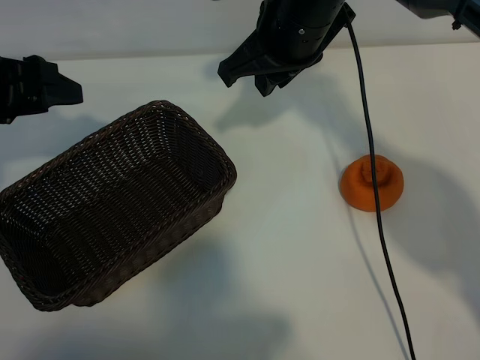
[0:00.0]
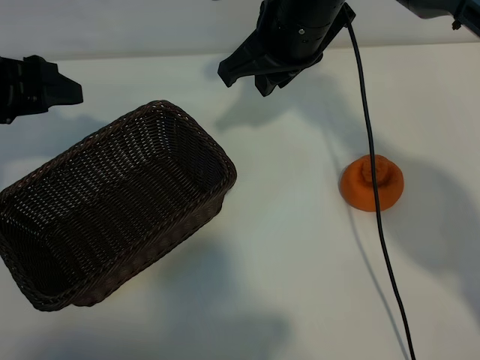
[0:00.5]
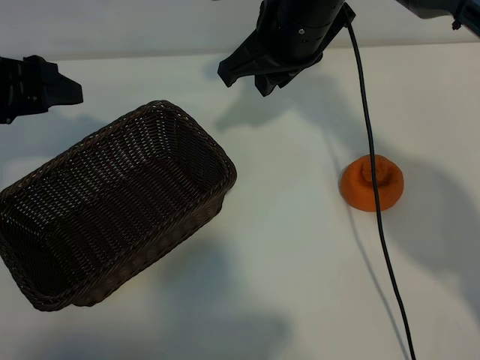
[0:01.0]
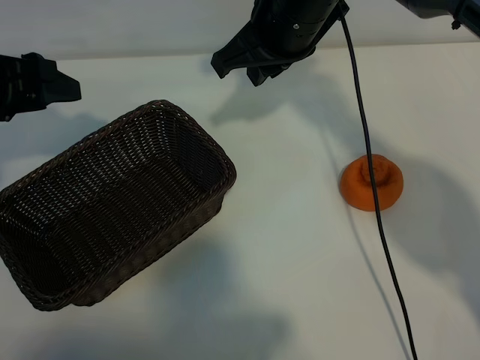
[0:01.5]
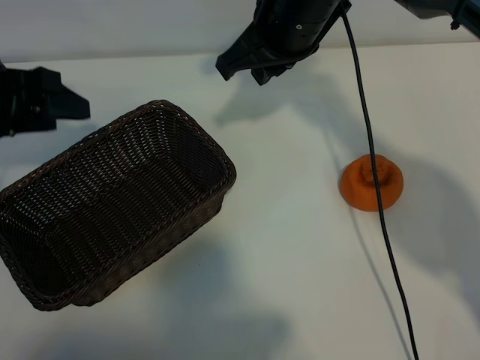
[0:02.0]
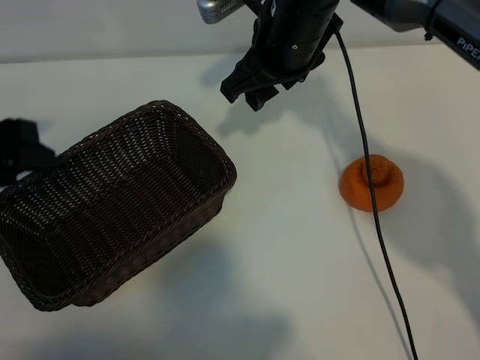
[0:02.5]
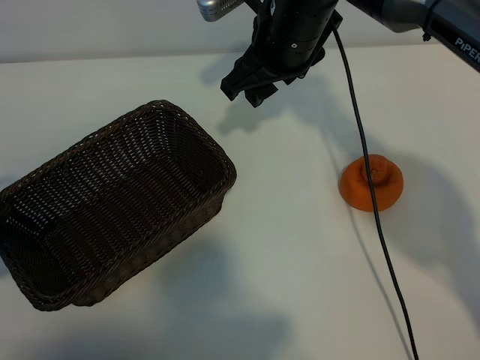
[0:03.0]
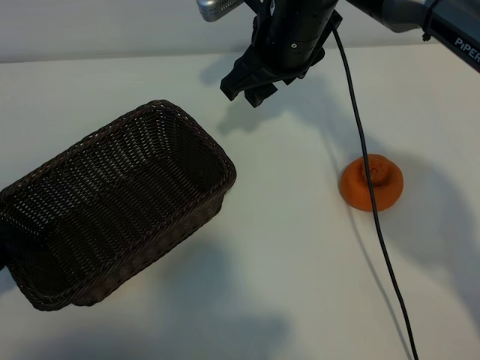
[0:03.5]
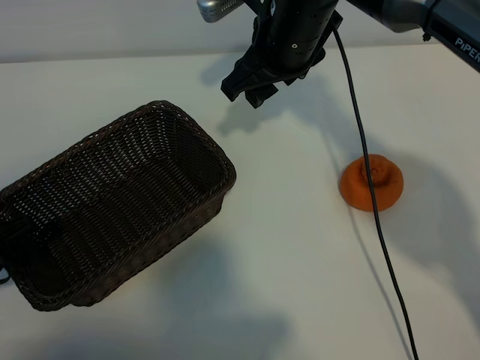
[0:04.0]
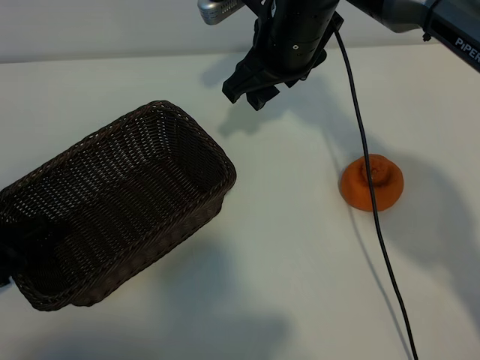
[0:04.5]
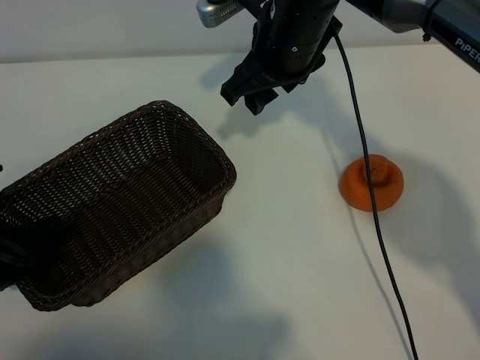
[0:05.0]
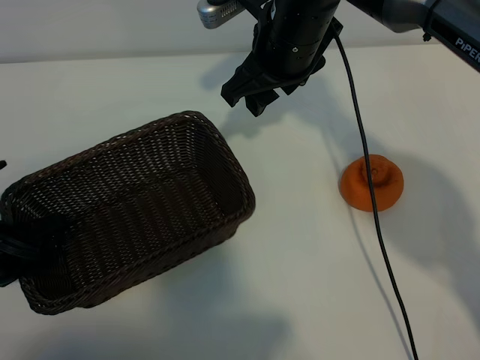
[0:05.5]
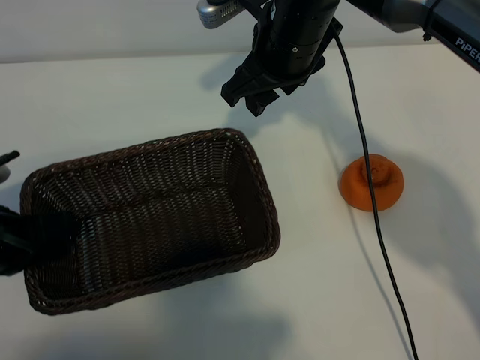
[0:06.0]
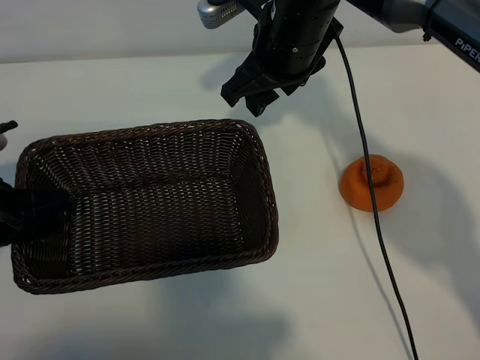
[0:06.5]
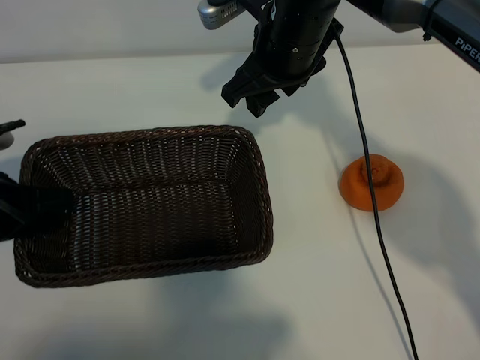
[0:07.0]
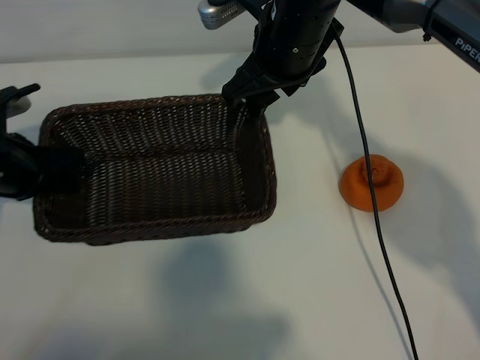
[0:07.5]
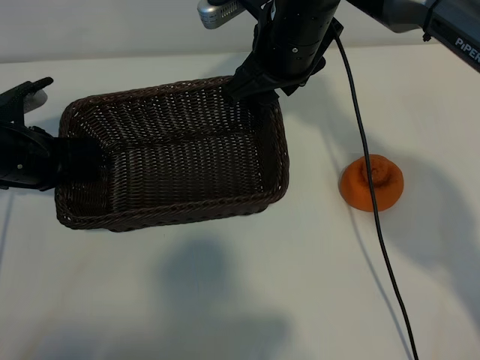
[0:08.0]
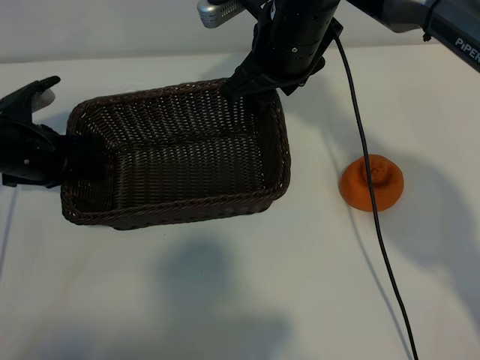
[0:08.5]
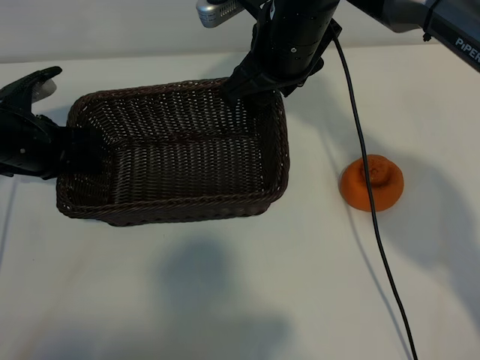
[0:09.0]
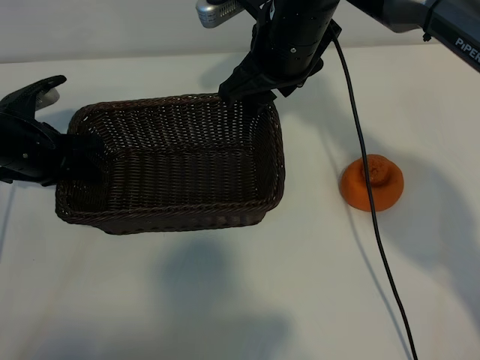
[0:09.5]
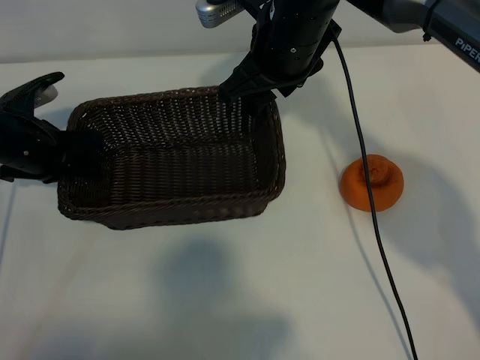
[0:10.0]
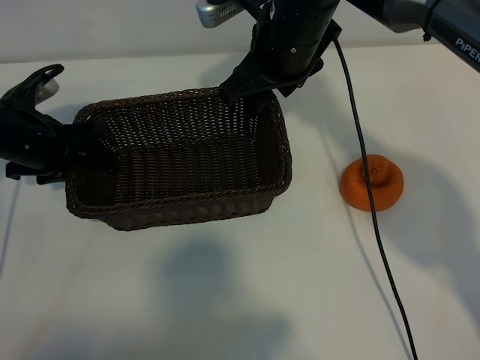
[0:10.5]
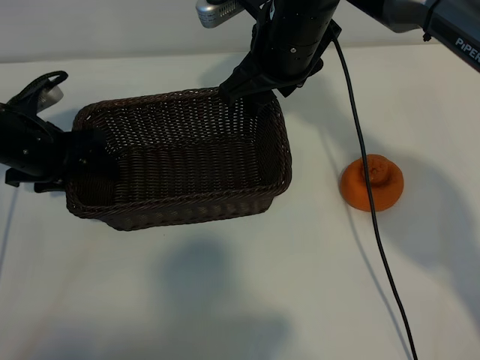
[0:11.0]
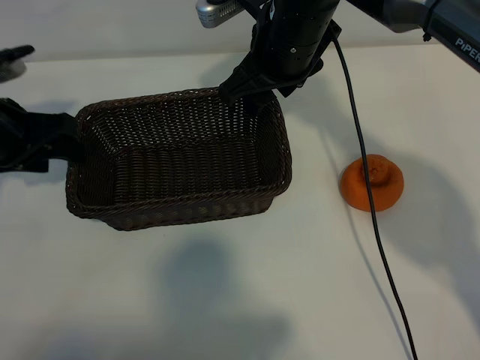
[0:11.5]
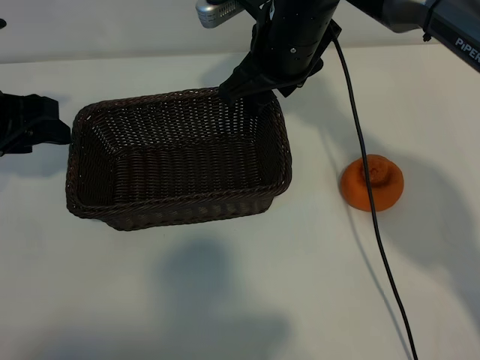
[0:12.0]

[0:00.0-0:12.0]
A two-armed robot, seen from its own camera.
Task of the whole recording: pick up the orange and put it into the basket.
Step, 0:01.0 to 0:05.0: Grasp the basket with left gripper.
Step, 0:05.5 to 0:10.0: Place the basket in the center of view with left gripper.

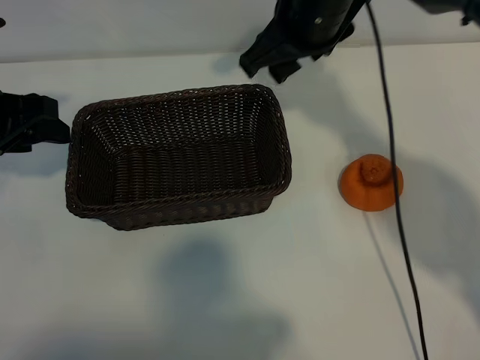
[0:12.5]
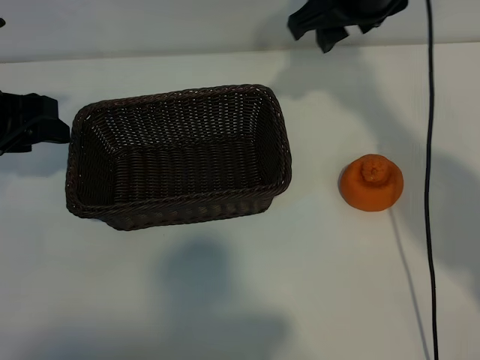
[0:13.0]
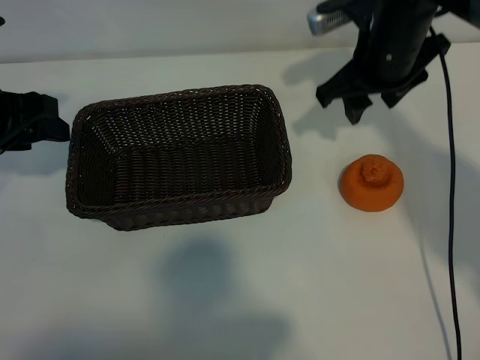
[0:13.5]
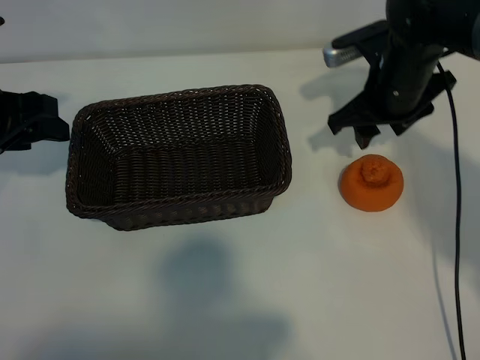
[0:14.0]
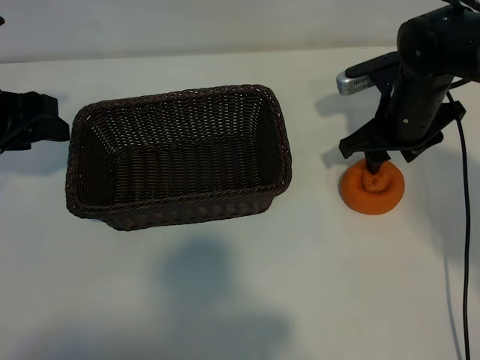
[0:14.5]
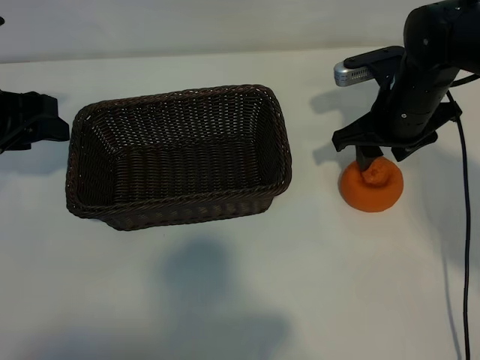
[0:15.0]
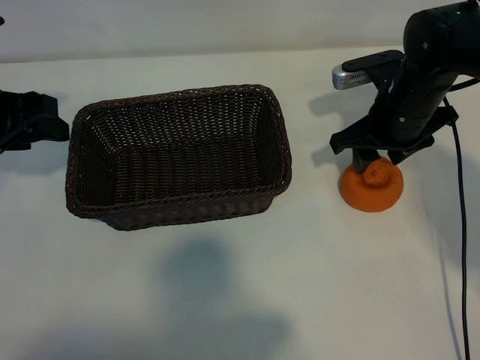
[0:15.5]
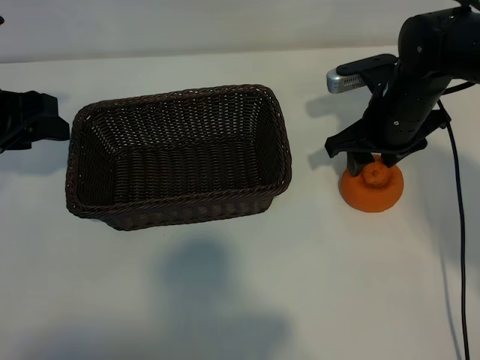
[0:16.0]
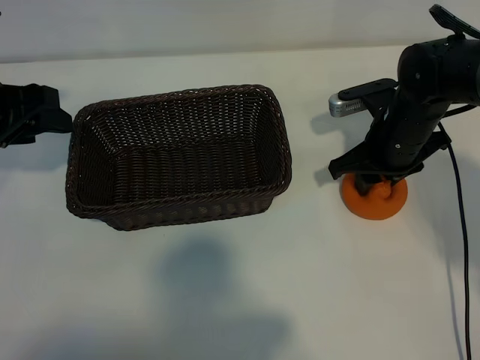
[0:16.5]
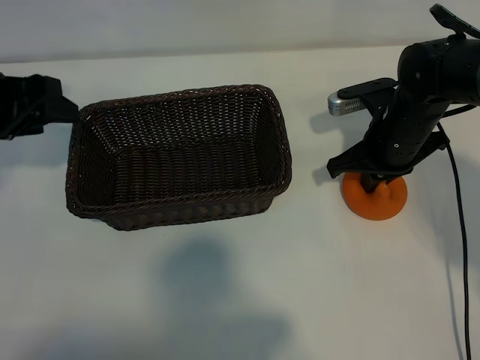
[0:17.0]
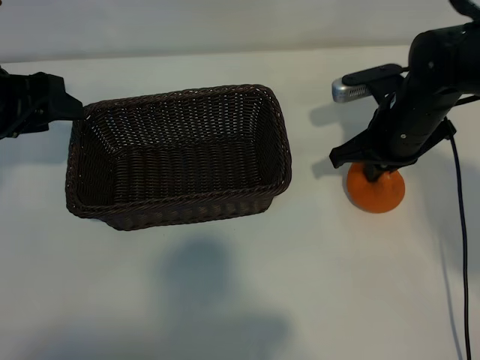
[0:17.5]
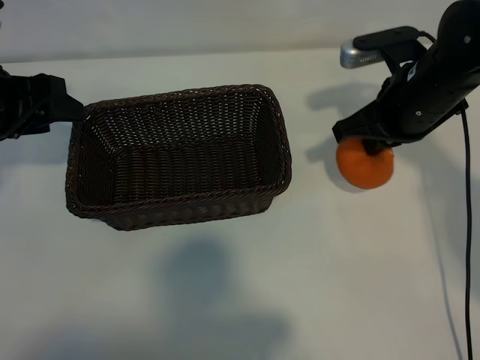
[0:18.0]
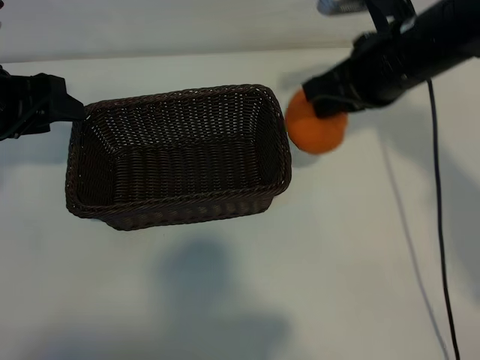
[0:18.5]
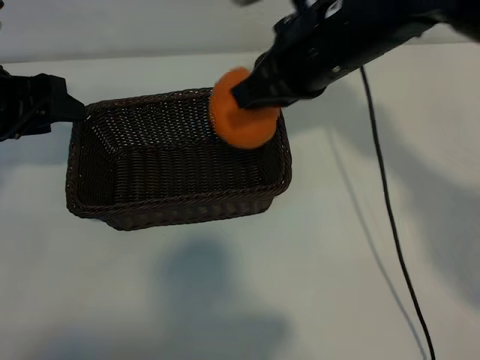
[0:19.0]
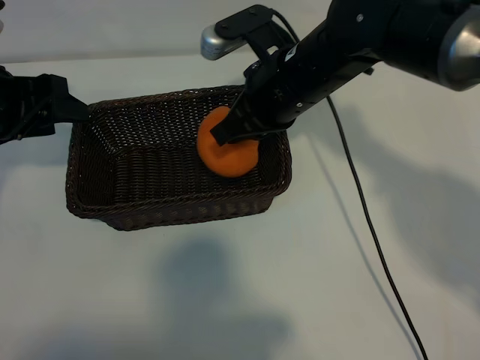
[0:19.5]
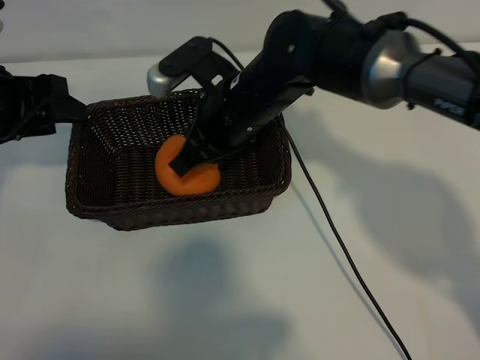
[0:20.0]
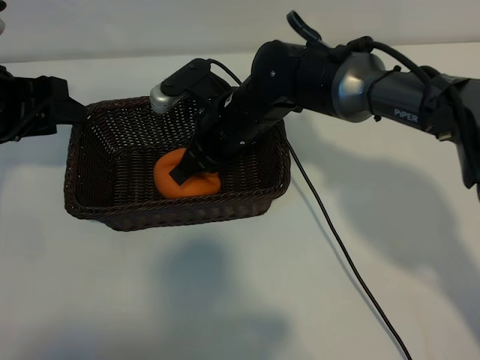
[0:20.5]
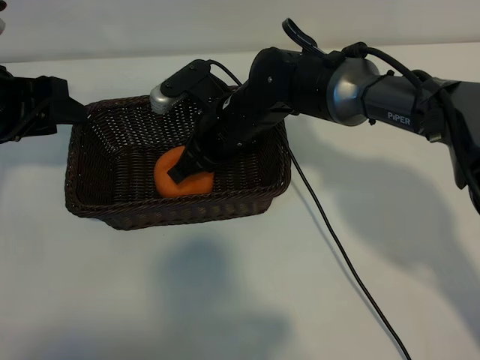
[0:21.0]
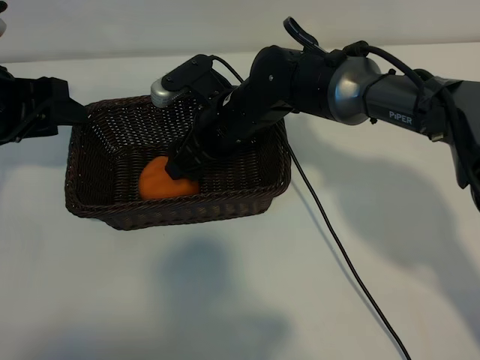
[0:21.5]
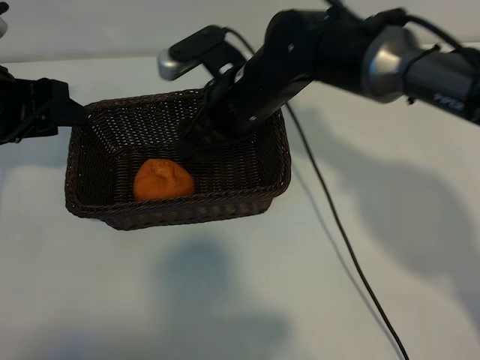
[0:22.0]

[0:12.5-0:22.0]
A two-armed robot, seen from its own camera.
Task of the whole recording: pick up the orange and put it into the basket.
Step, 0:12.5 to 0:16.5: Grasp the orange with right gripper.
Step, 0:17.0 to 0:21.5: Place the orange in the basket with right gripper.

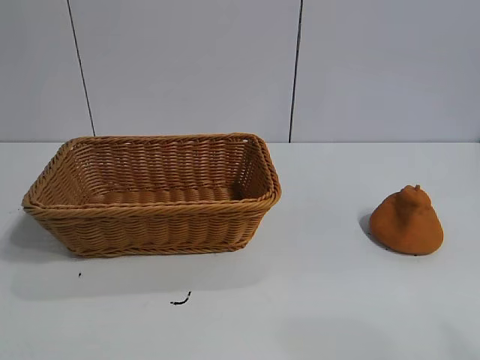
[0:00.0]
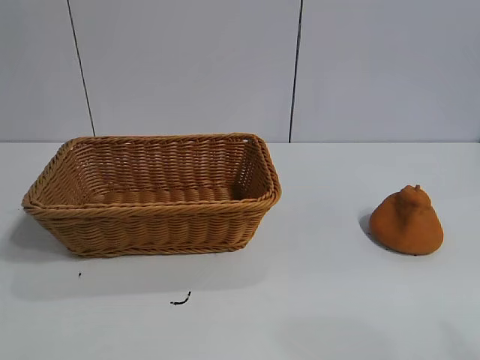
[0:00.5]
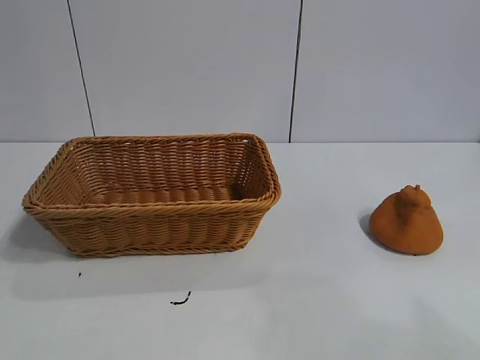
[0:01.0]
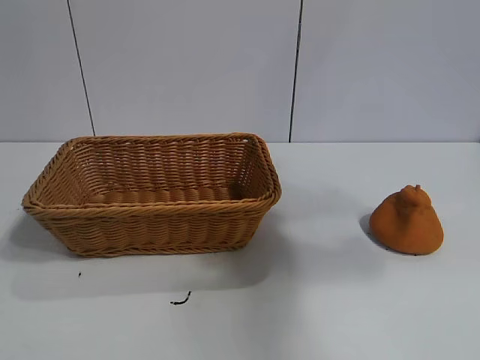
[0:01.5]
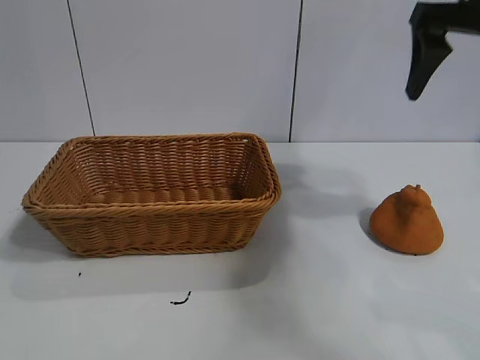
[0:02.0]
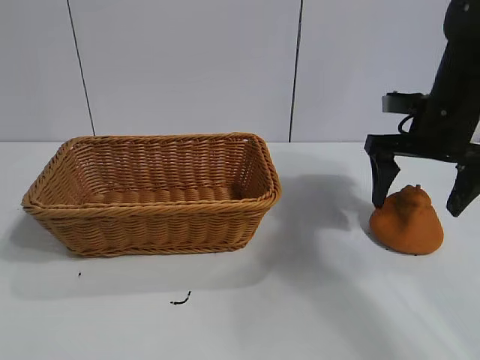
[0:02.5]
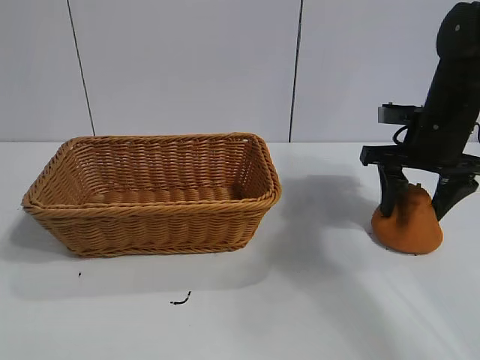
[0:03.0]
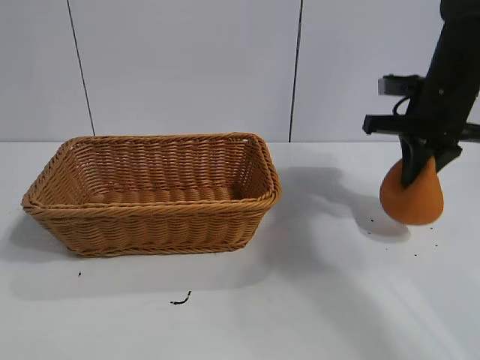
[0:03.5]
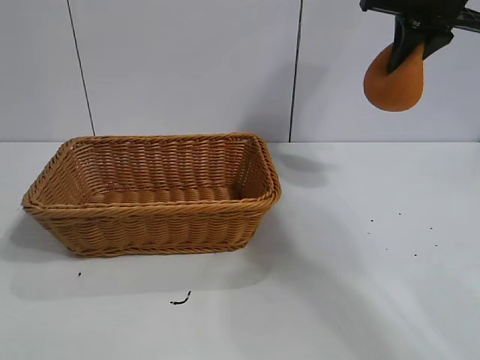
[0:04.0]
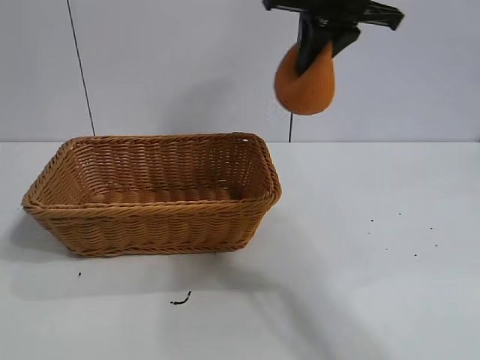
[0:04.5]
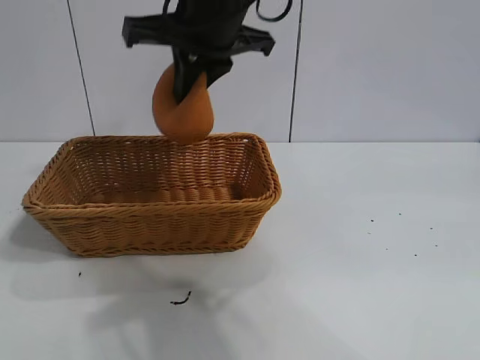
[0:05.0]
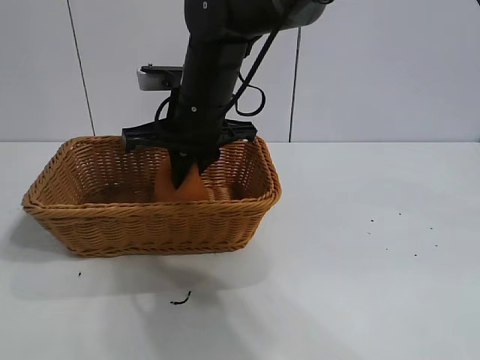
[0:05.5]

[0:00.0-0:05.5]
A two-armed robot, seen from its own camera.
Task of the whole recording: pick up the orange and put it into the basket.
Step, 0:01.0 to 0:03.0: Grasp the orange with right gripper.
